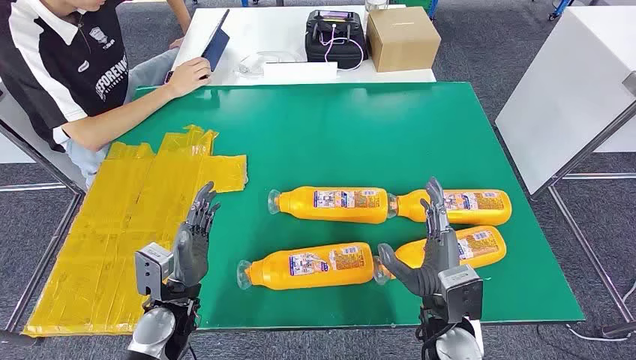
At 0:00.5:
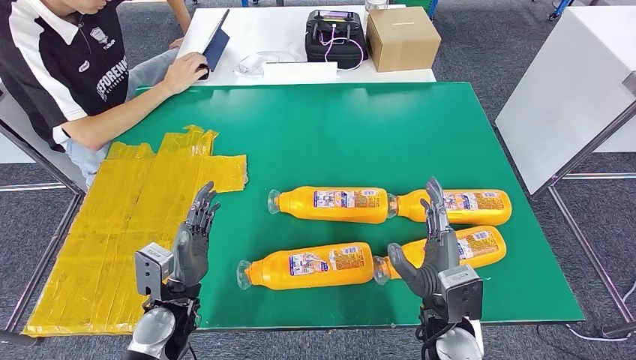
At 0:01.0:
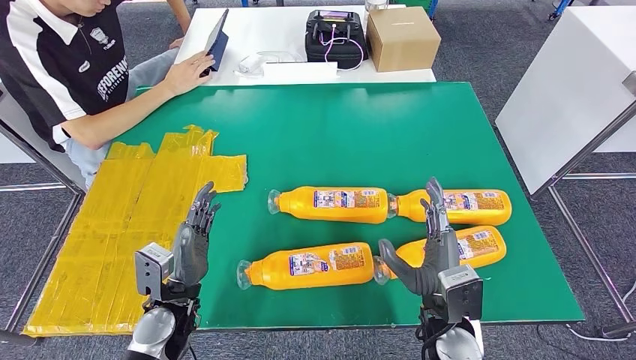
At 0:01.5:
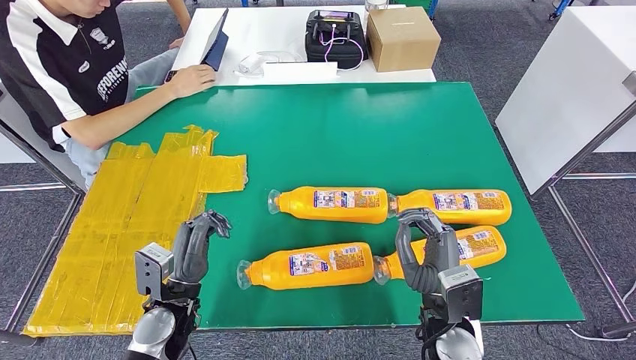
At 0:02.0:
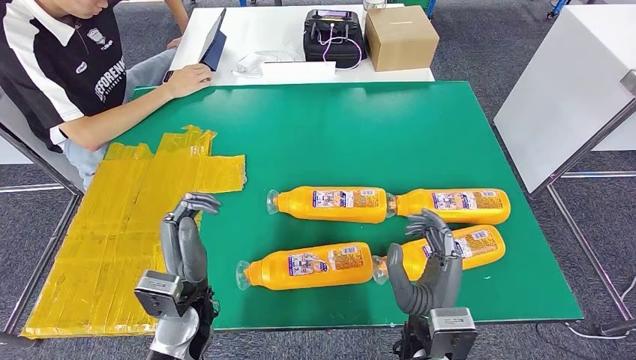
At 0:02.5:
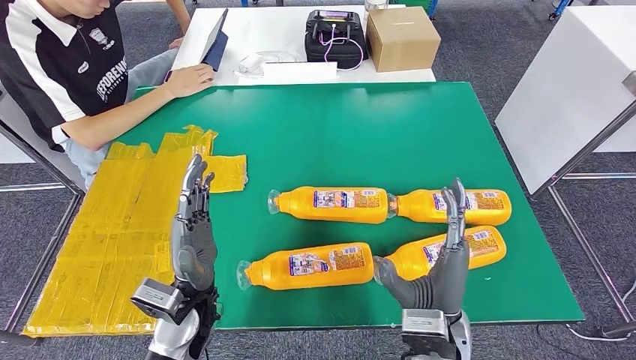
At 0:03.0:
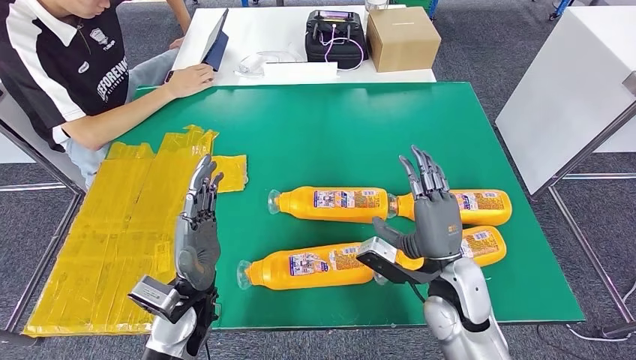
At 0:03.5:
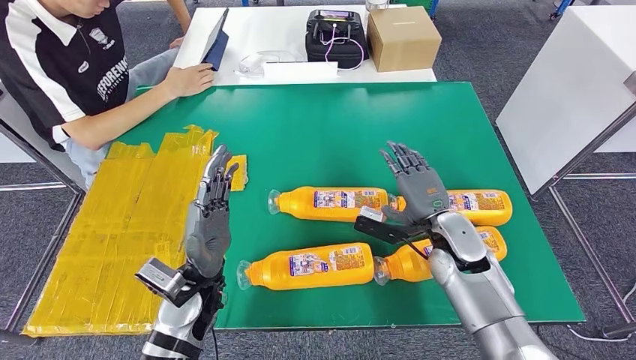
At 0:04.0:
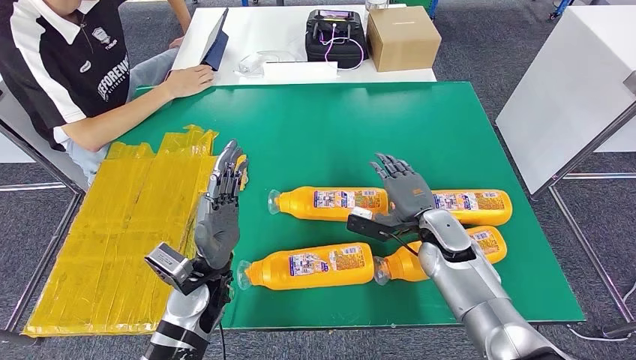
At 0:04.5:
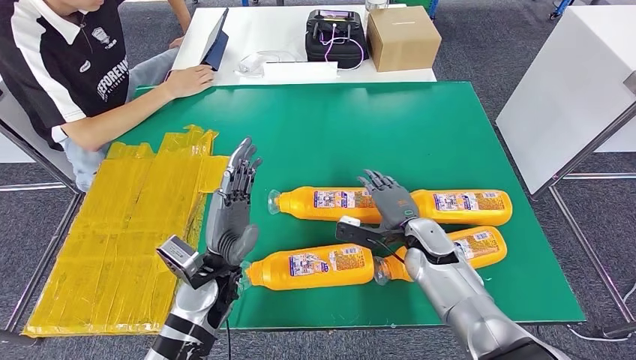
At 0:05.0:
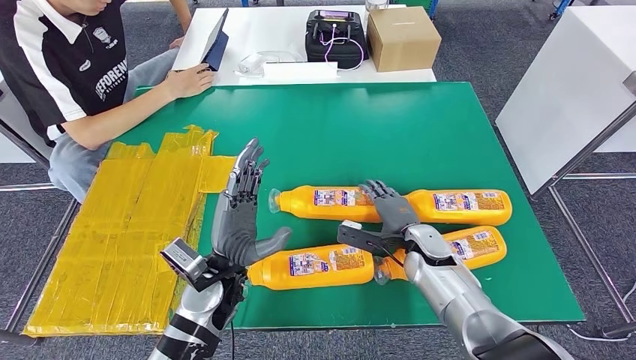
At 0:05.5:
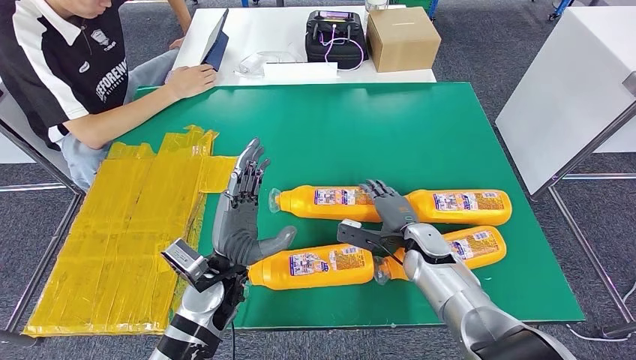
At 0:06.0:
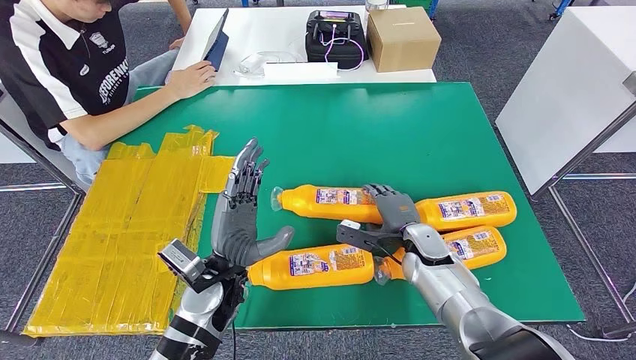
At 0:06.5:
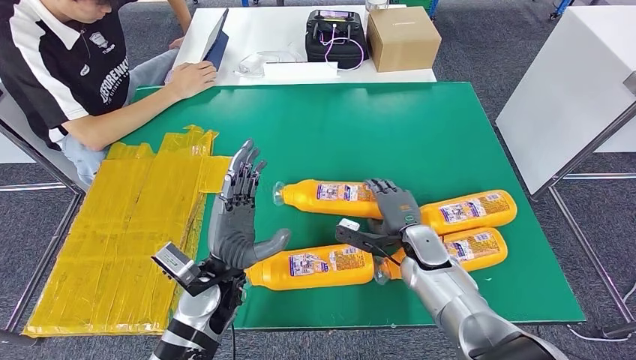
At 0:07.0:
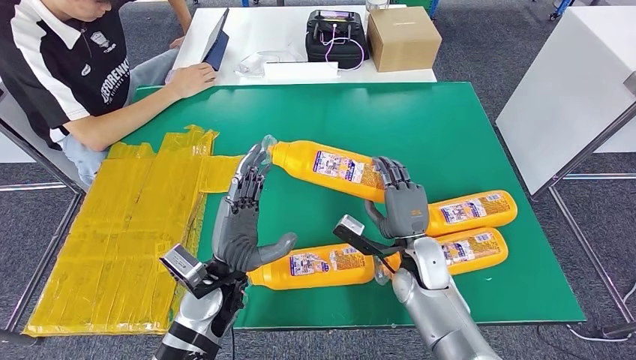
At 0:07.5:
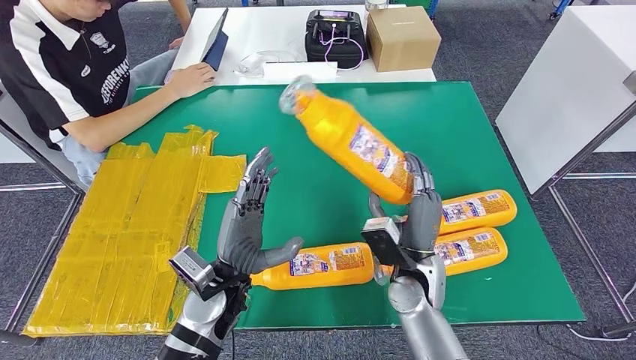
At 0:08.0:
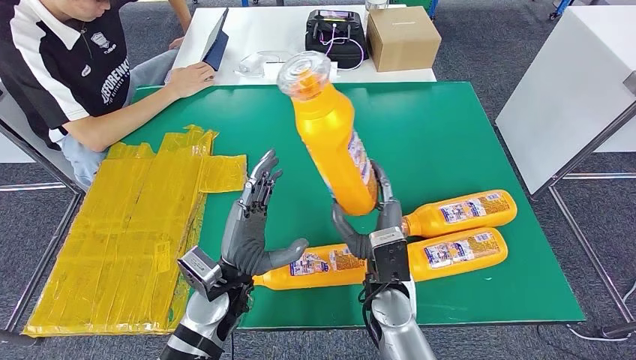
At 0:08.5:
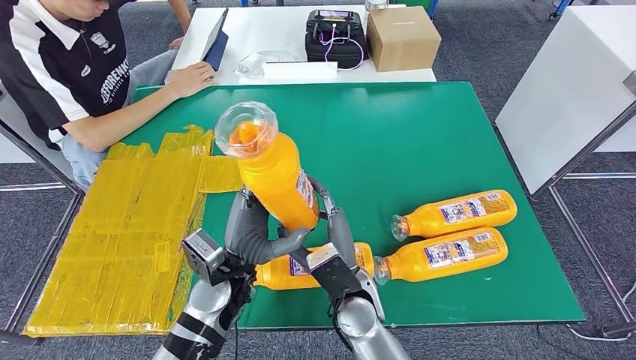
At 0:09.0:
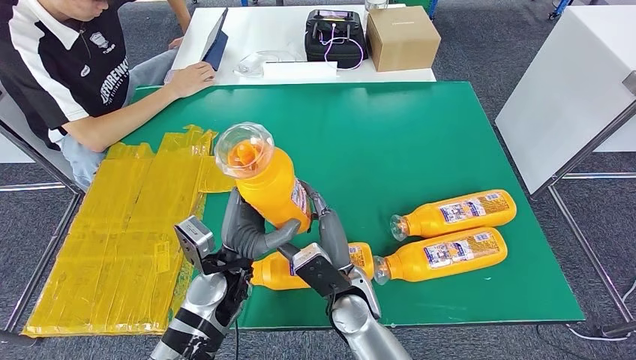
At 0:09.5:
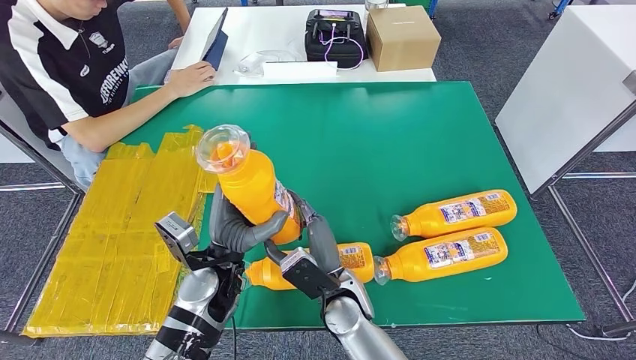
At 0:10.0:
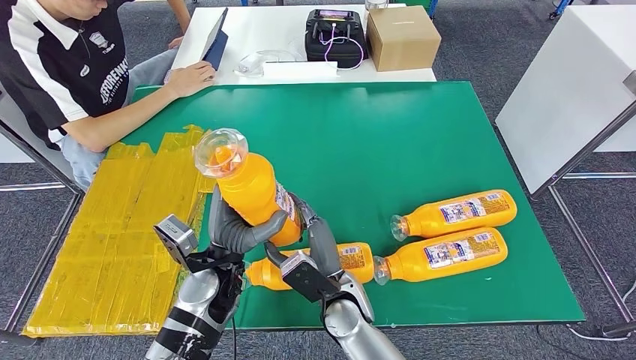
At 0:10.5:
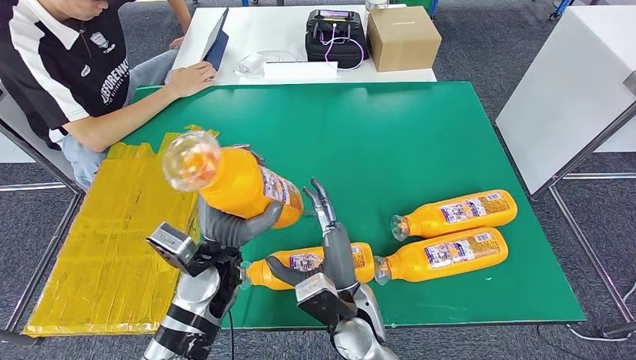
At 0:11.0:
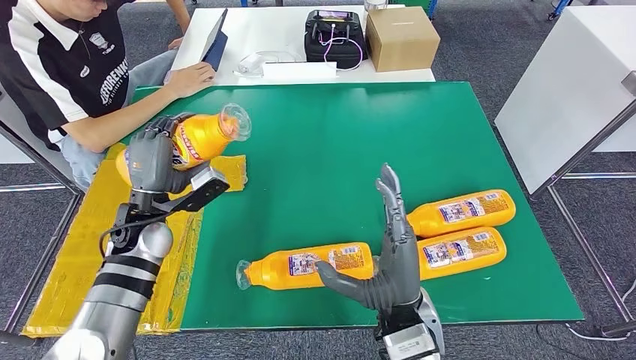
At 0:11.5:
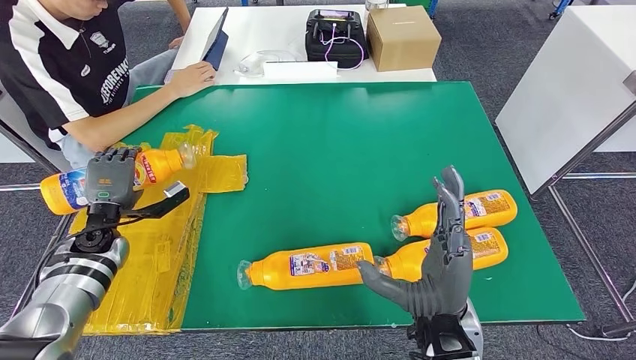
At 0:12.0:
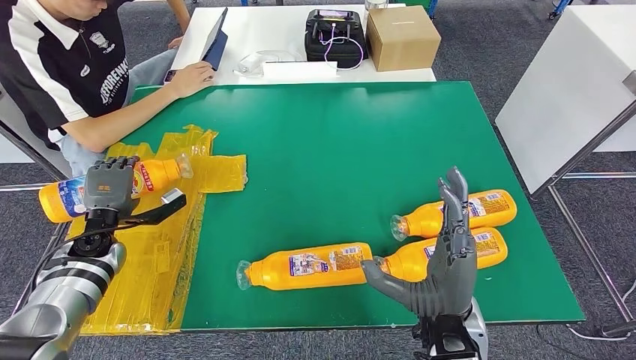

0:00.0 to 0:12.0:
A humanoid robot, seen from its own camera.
Step, 0:00.0 to 0:07.5: Take the fast-moving consumer goods bottle from the table.
0:04.0 to 0:06.0: The right hand ends up about 5 cm from where it was.
0:06.0 to 0:08.0: The right hand travels to the left, backward and upward by about 15 cm.
0:08.0 to 0:10.0: The right hand goes some 10 cm to the left.
0:10.0 to 0:12.0: The left hand heads to the left, covering some 25 cm. Meanwhile the right hand moves to the right and upward, approximately 15 cm.

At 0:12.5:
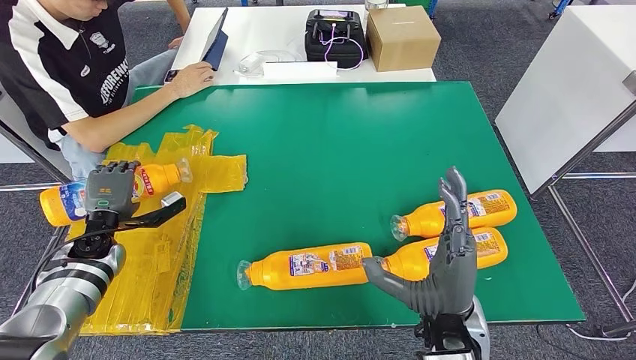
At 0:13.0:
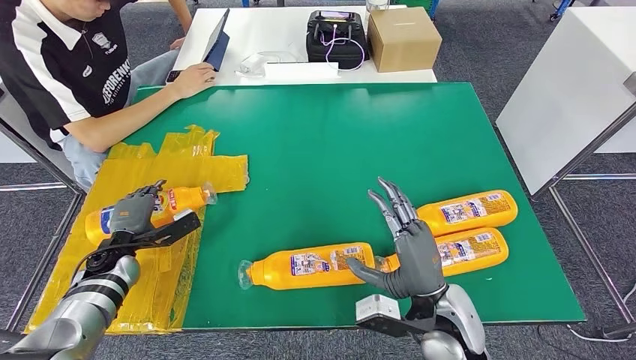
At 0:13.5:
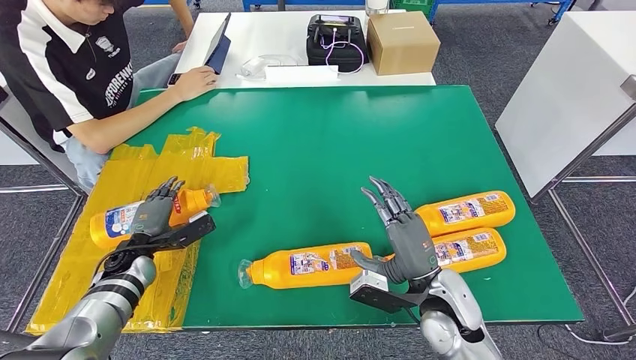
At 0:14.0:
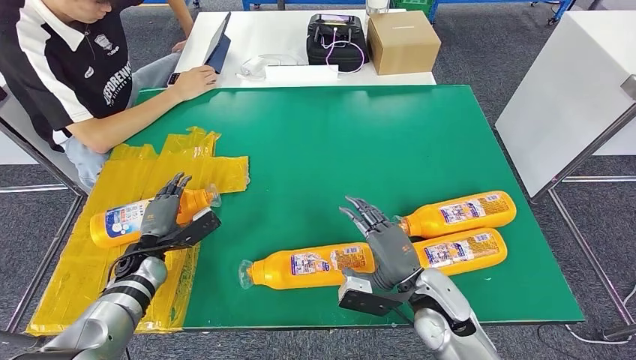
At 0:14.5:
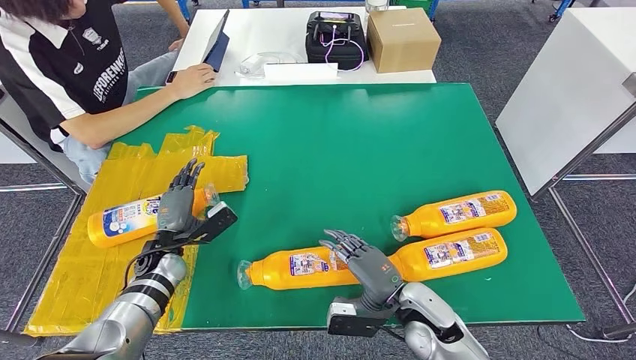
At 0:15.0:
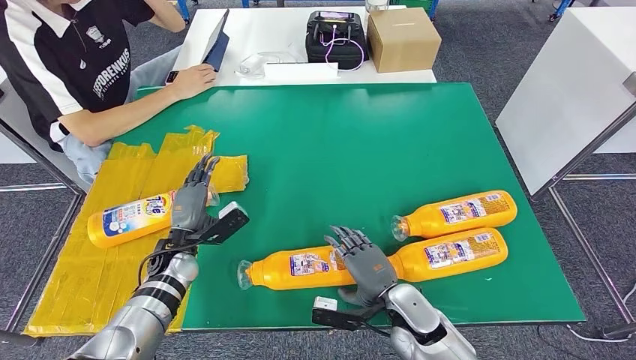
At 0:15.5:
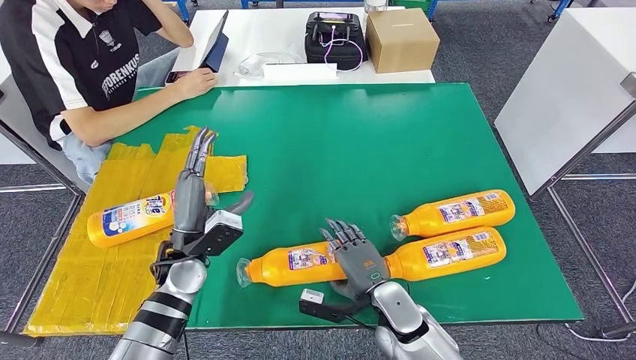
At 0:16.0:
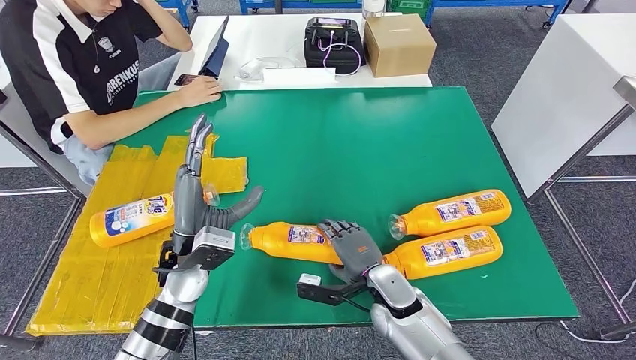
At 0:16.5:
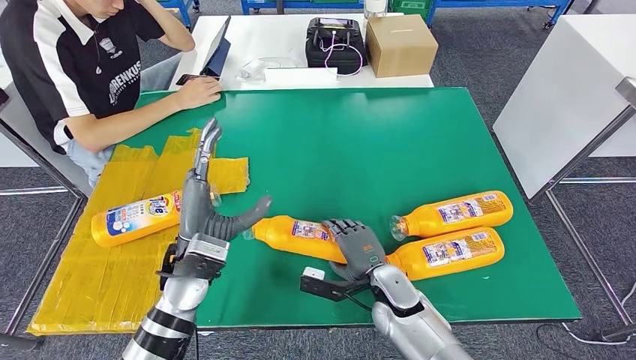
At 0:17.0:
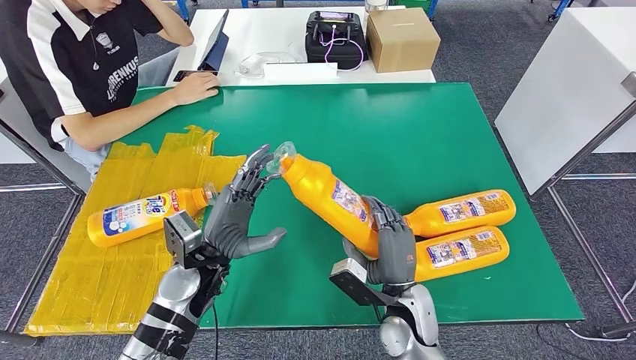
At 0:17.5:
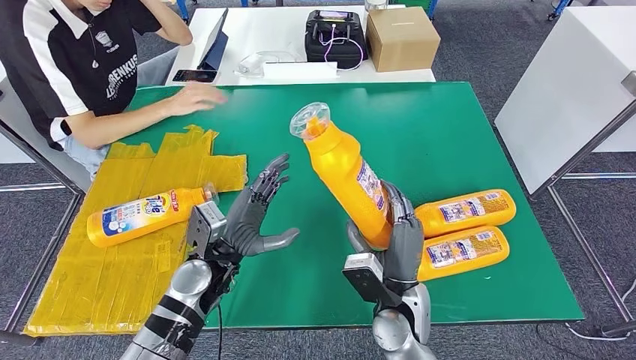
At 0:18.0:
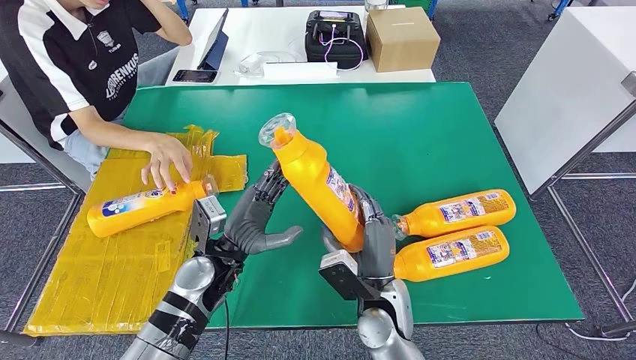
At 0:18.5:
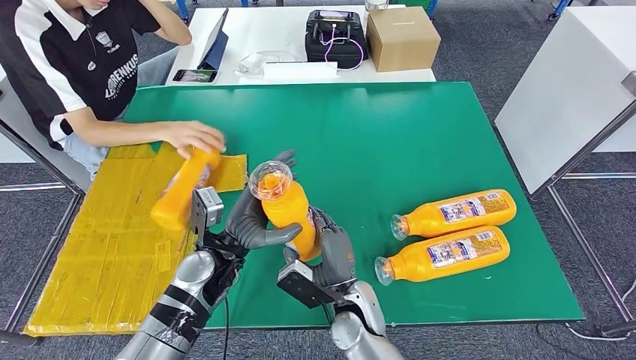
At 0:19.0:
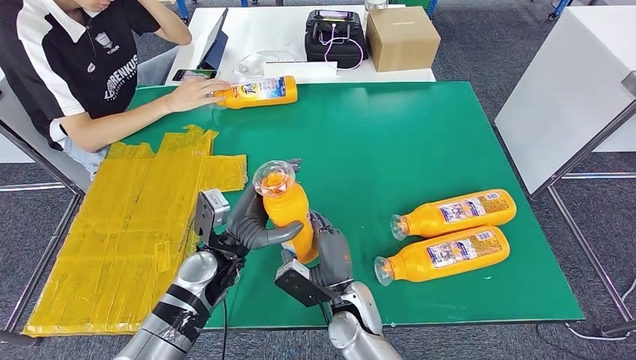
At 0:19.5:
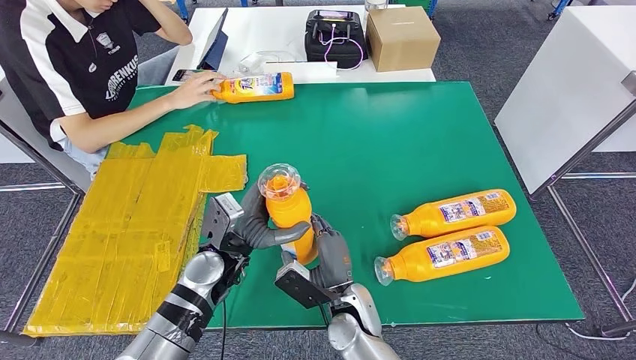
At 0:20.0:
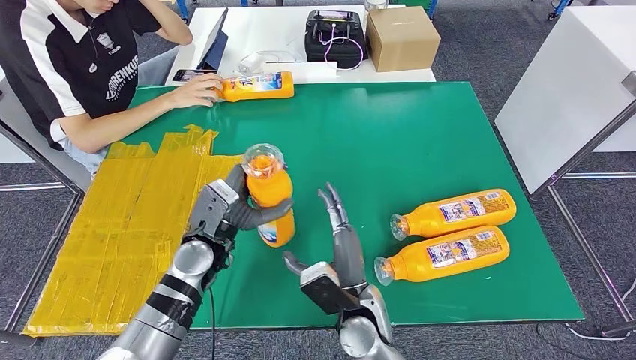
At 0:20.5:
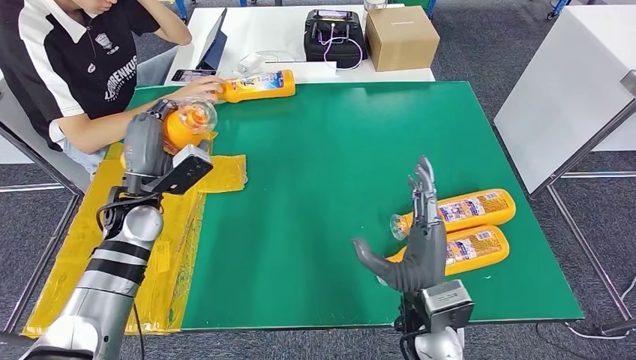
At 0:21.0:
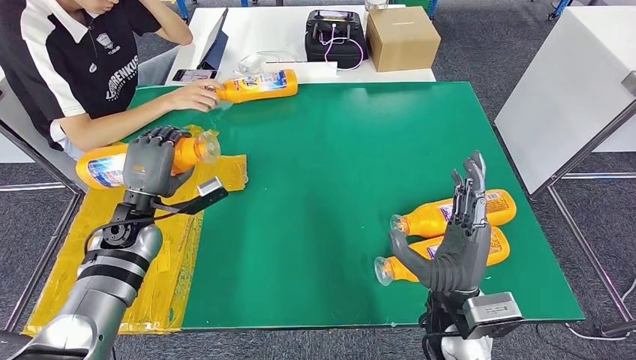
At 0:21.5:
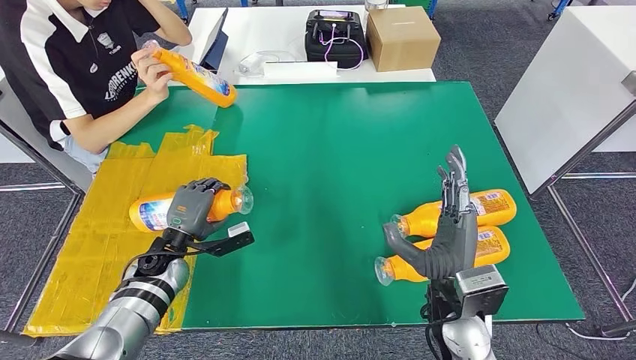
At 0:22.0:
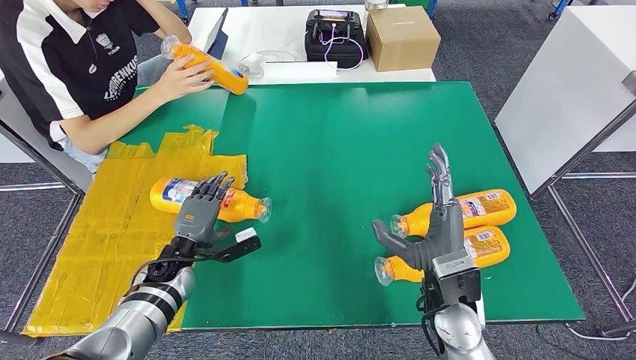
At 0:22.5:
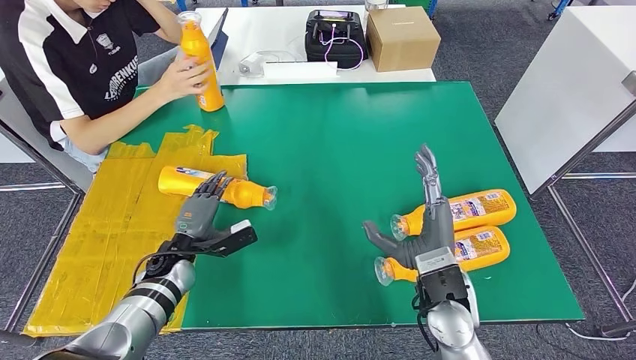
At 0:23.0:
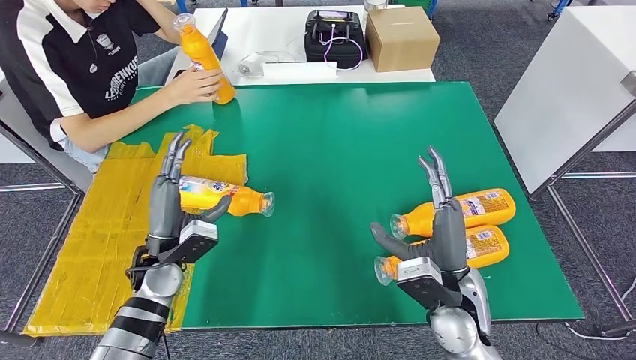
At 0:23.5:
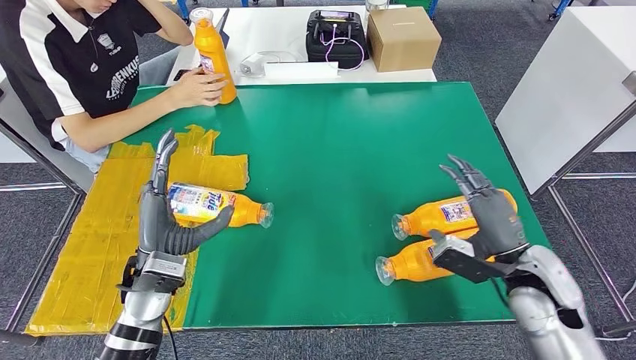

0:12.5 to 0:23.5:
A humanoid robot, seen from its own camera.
Step, 0:12.5 to 0:14.5: Flip the fast-moving consumer goods bottle to the front side.
Step, 0:15.5 to 0:18.5: Pick up the fast-moving consumer goods bottle from the table.
Step, 0:19.0 to 0:22.5: Flip the fast-moving consumer goods bottle to the front side.
